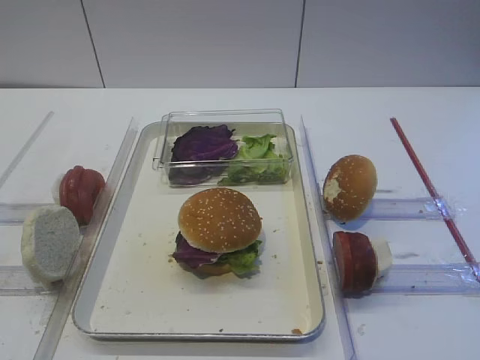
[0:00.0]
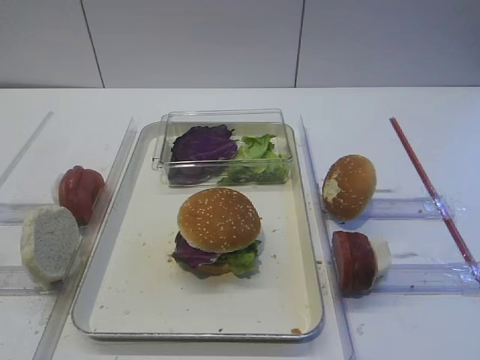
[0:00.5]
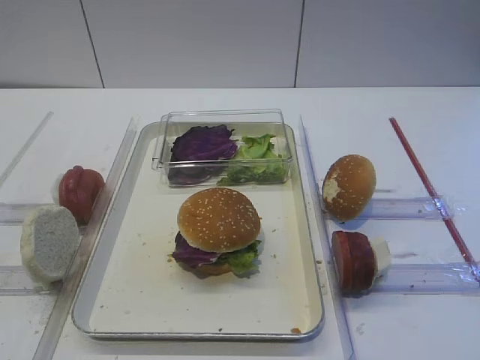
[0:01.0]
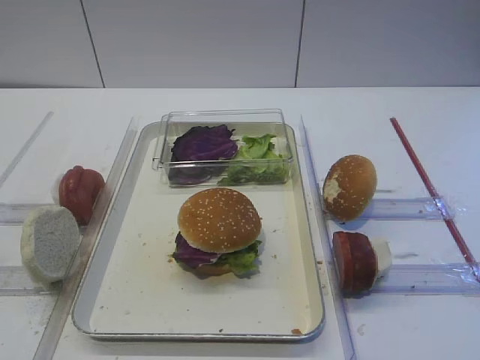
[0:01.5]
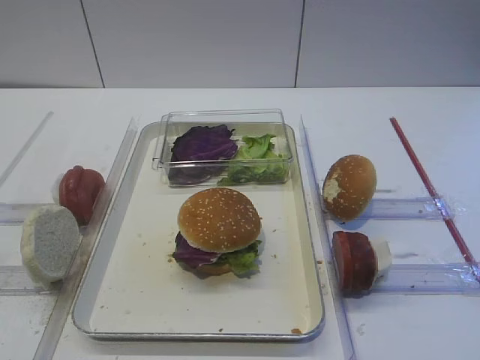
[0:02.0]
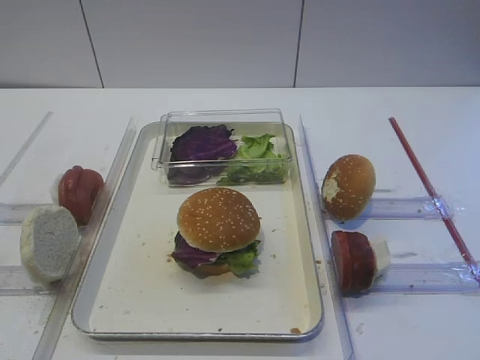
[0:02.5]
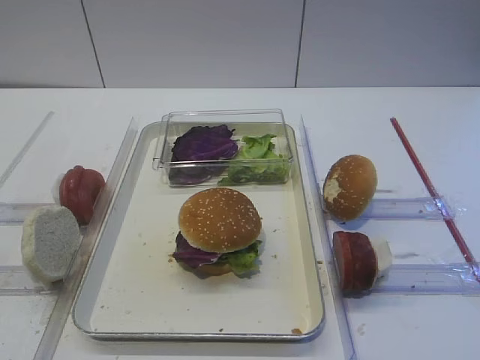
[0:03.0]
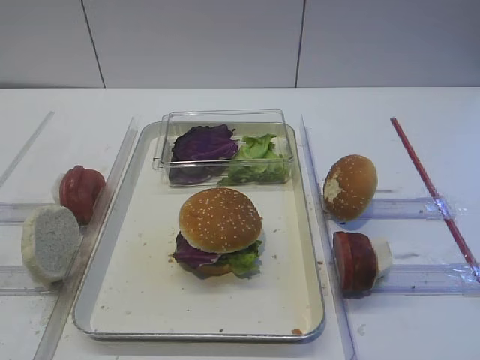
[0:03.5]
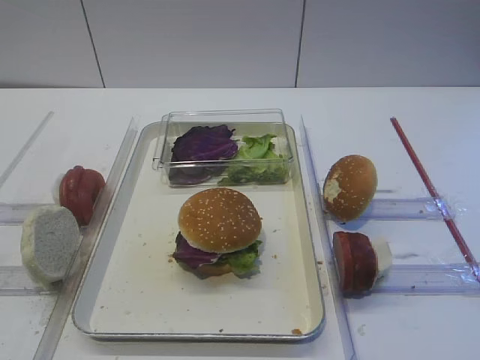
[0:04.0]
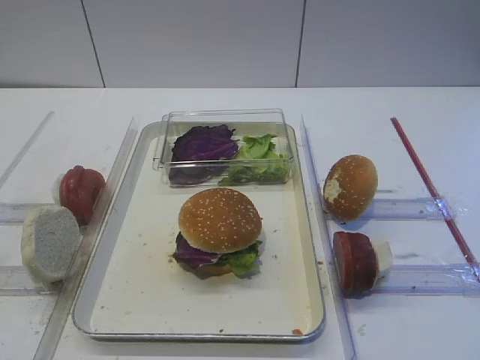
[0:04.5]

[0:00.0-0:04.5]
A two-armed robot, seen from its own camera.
0:00.0 to 0:02.0: The two grippers keep their place.
